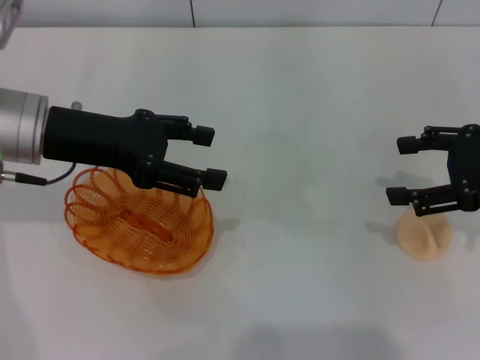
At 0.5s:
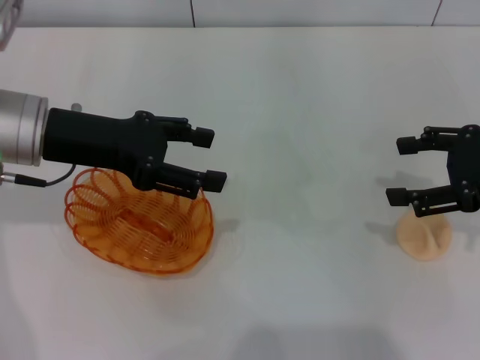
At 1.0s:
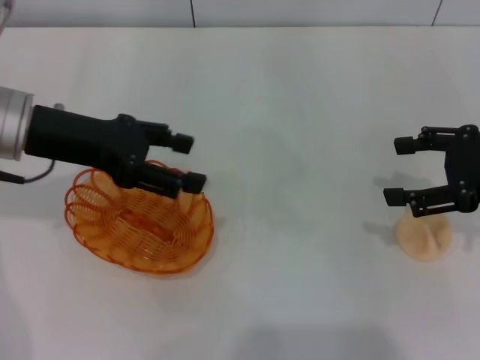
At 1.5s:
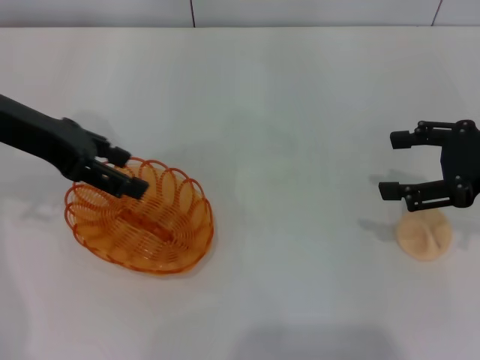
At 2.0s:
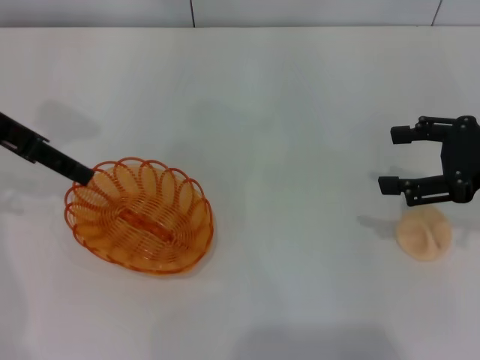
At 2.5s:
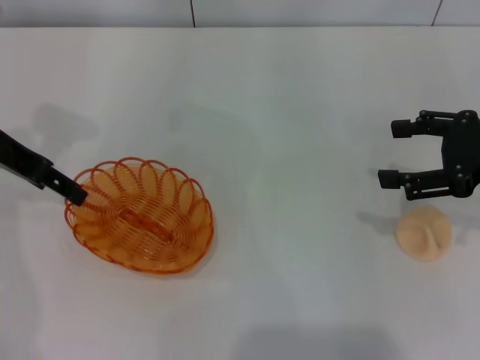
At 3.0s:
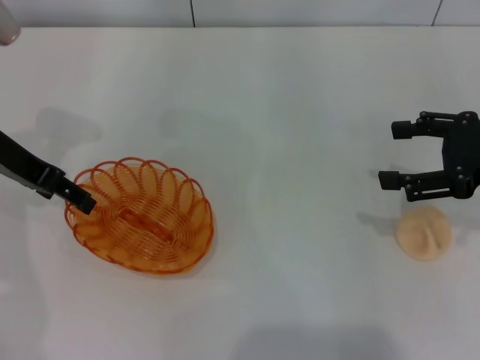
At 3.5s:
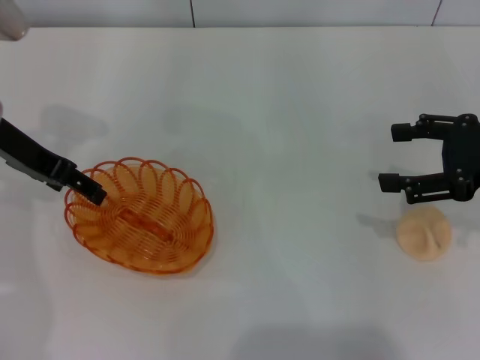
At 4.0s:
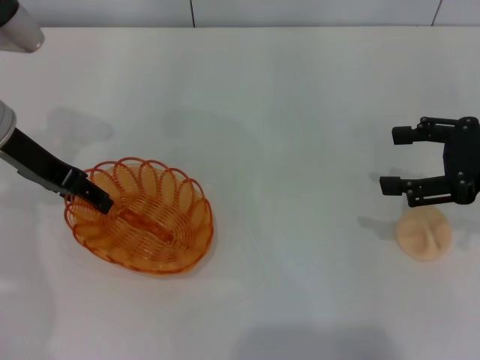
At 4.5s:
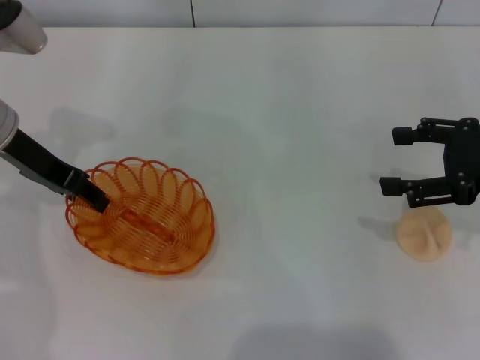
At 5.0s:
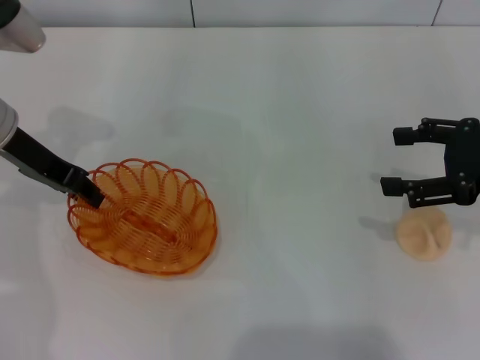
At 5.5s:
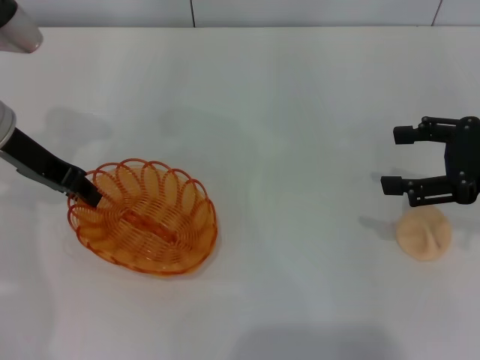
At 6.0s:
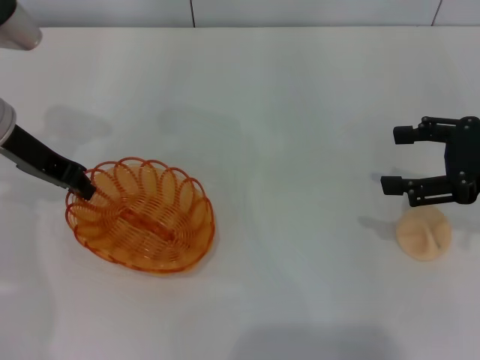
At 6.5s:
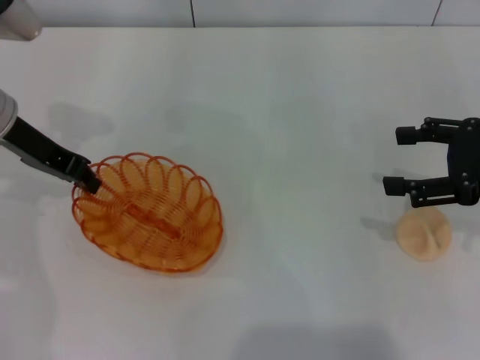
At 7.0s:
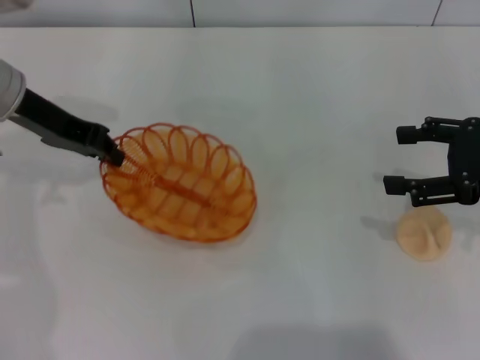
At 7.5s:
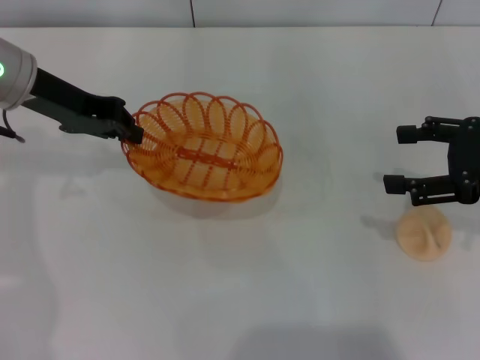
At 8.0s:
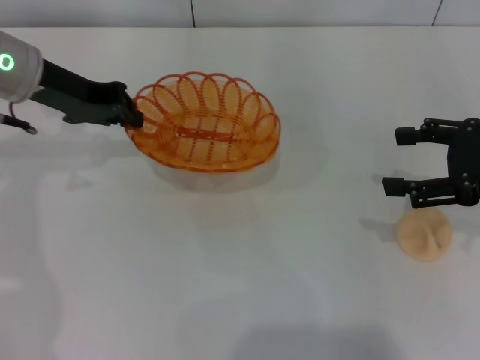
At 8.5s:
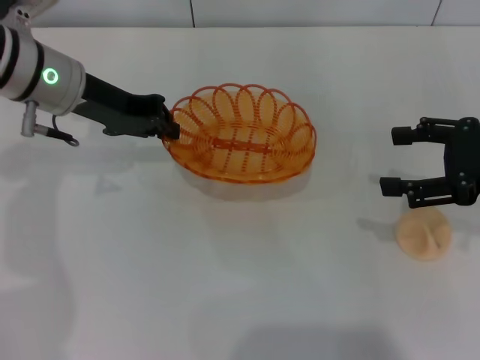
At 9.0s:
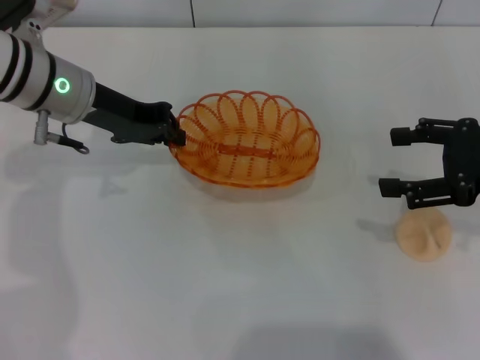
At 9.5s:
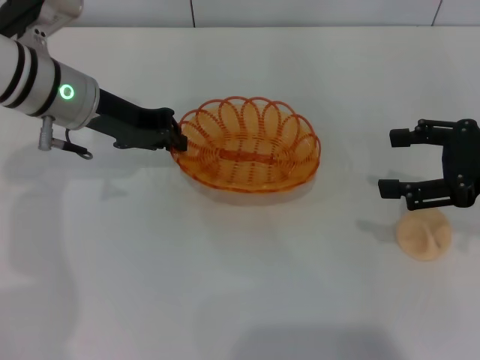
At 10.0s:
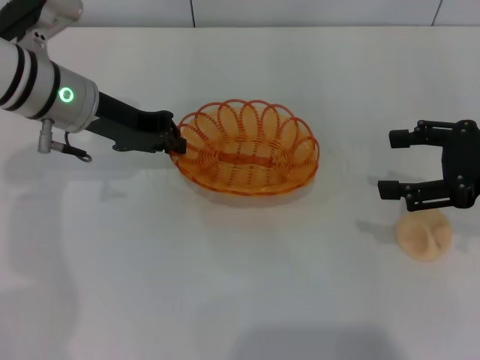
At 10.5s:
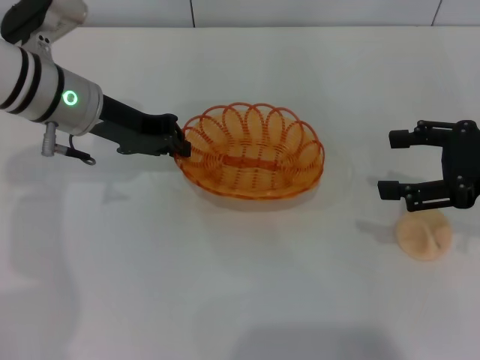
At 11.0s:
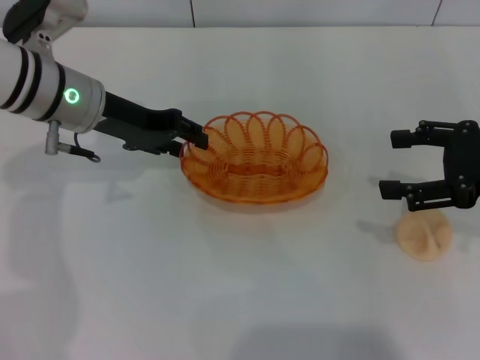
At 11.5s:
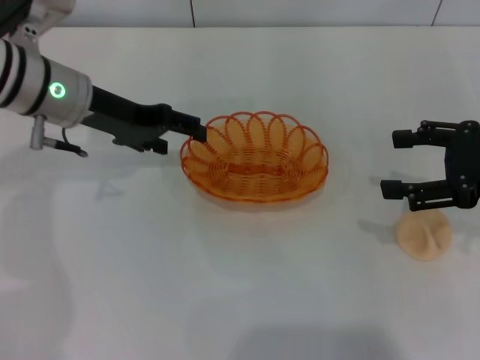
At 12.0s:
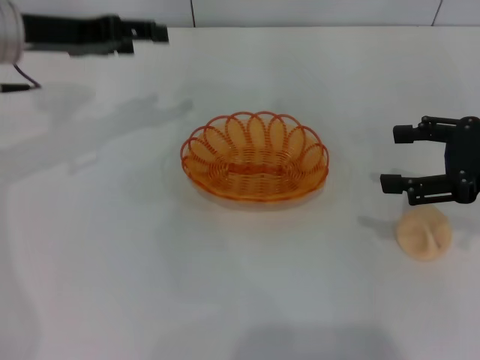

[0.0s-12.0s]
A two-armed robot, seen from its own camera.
Step, 0.0s to 7.0s: Pick up the basket with the left gripper.
Step, 7.5s to 11.5s: Place the basket in the center of view with the left gripper.
0.0s to 2.0s: The left gripper is displaced to the left and upward by some 10 cm.
2.0s to 4.0s: The left gripper shifts roughly 5 cm downward.
4.0s to 6.0s: The left gripper closes.
8.0s to 10.0s: The left gripper changes place by some 5 cm.
10.0s to 12.0s: The left gripper shifts approximately 5 cm to the left and upward, and opens up.

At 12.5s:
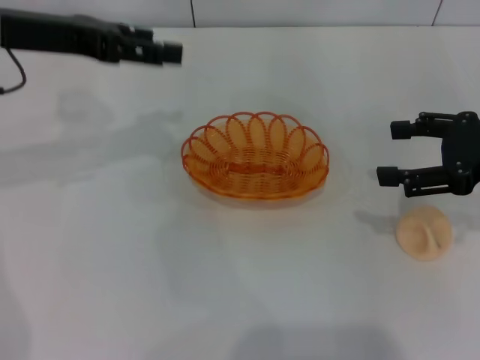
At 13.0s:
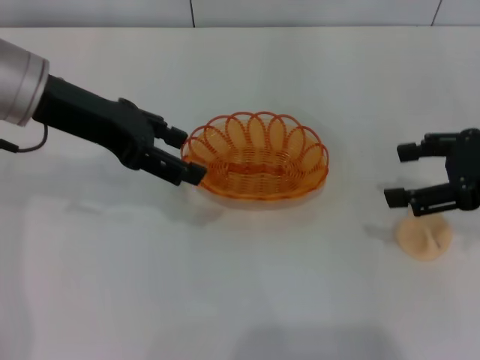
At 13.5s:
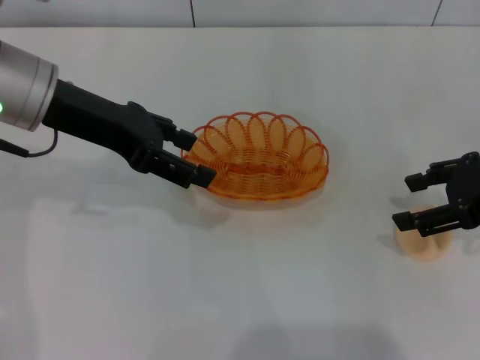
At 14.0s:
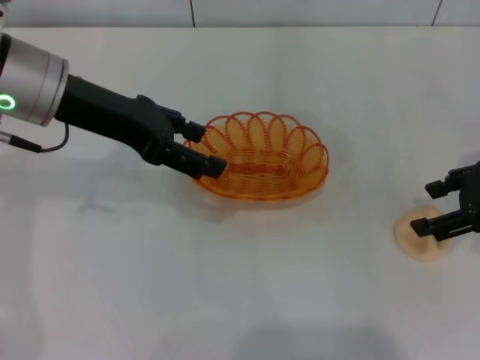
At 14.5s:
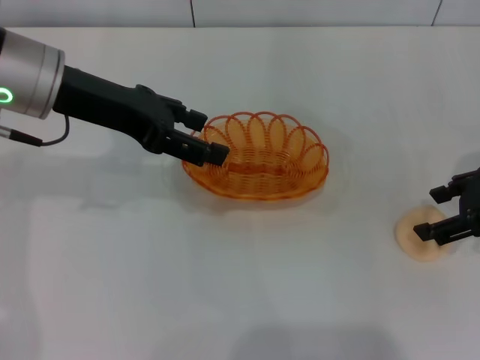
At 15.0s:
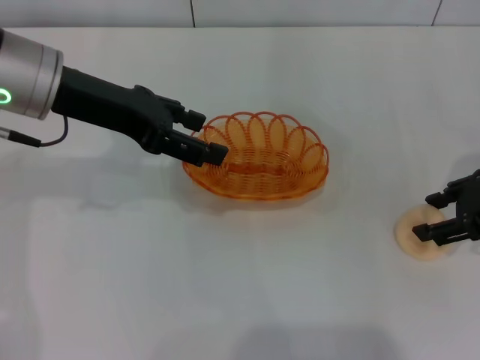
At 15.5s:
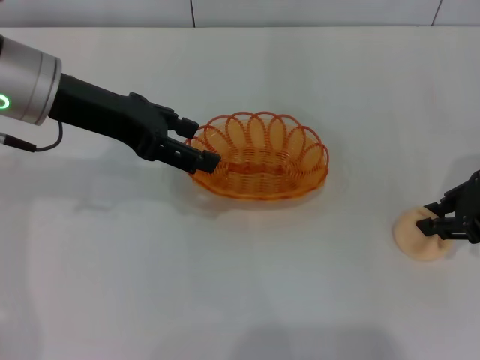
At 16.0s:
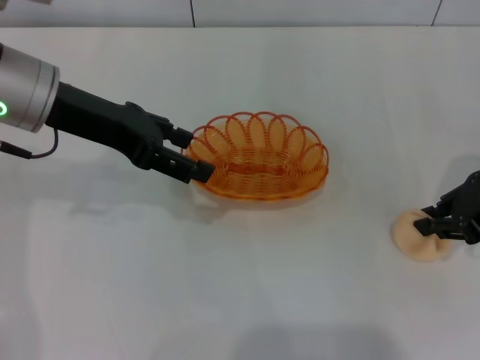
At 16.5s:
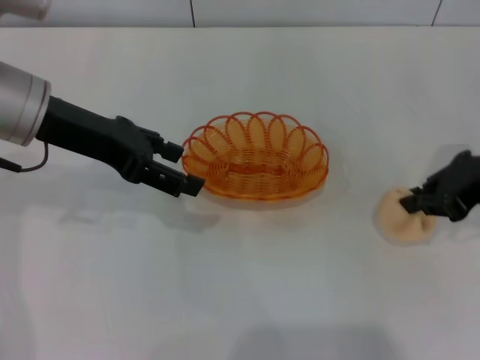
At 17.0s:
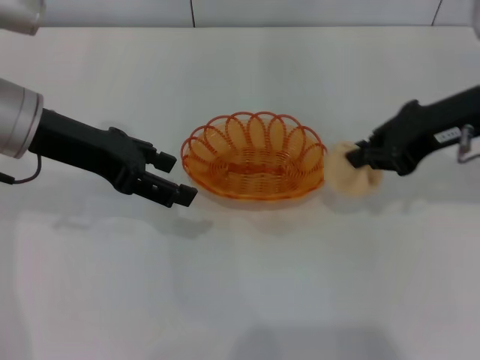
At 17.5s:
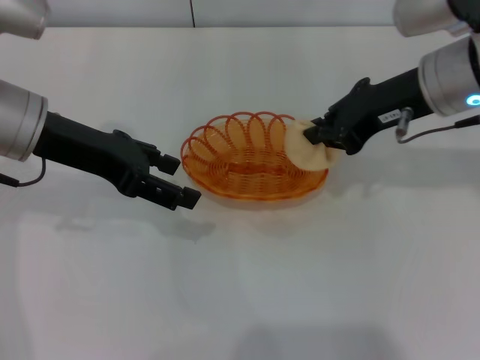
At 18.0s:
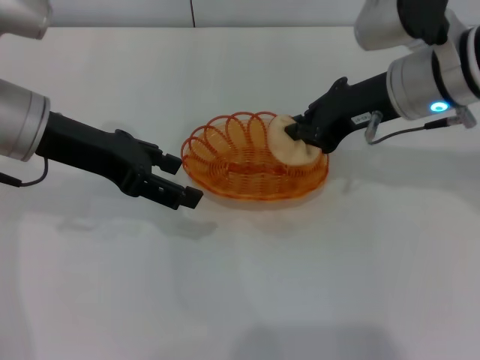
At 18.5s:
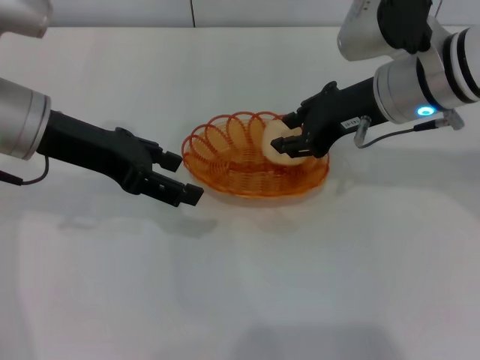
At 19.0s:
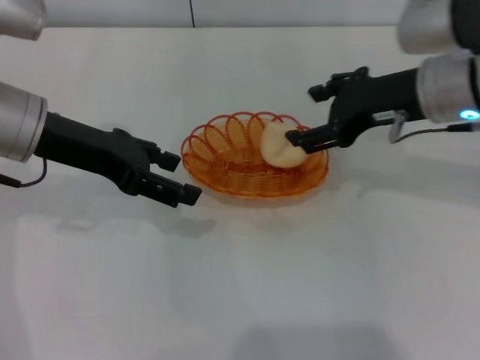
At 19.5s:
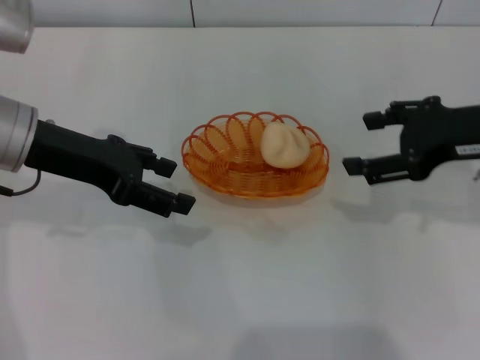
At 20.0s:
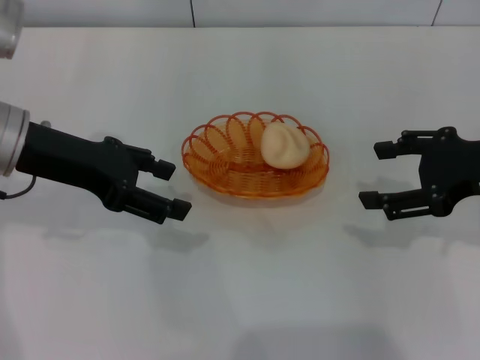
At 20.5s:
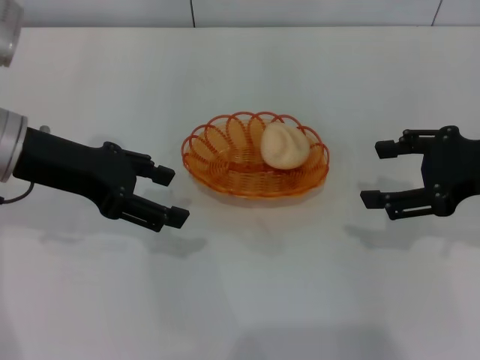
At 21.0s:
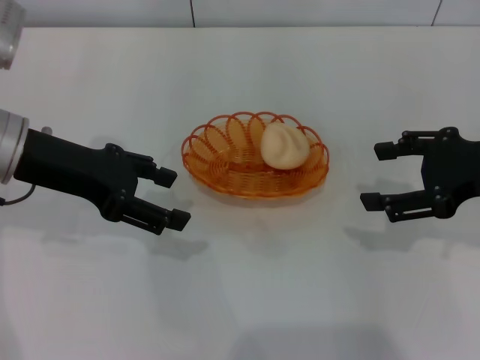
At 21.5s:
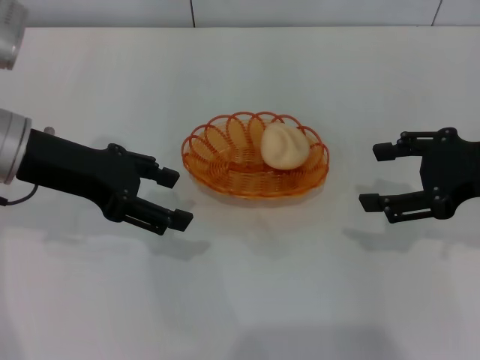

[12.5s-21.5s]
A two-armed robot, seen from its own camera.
Step, 12.5s to 16.5s: Pick up the egg yolk pastry with the right gripper.
Step, 17.0s to 19.0s: Place the egg yolk pastry into the basket with the right gripper.
12.5s to 14.5s: The left gripper moves approximately 5 cm.
14.5s to 17.0s: The right gripper heads to the left and upward, covering about 10 cm, and closes.
17.0s to 19.5s: The right gripper moves about 10 cm to the left and comes back, and opens its fingers.
19.5s to 21.5s: The grippers stay close to where they were, moving slightly.

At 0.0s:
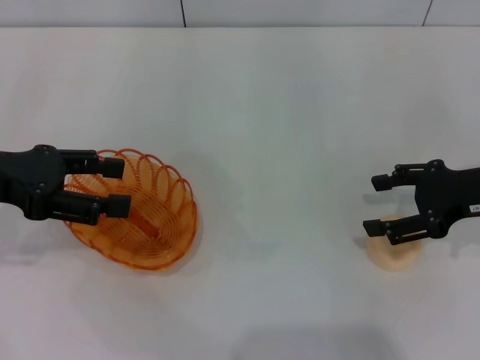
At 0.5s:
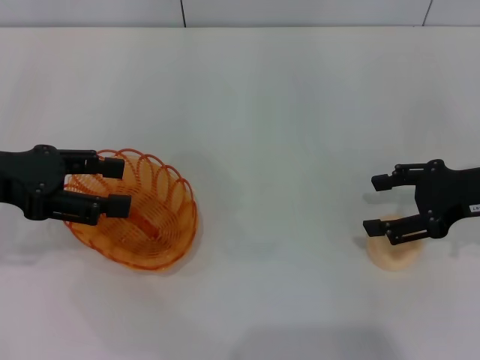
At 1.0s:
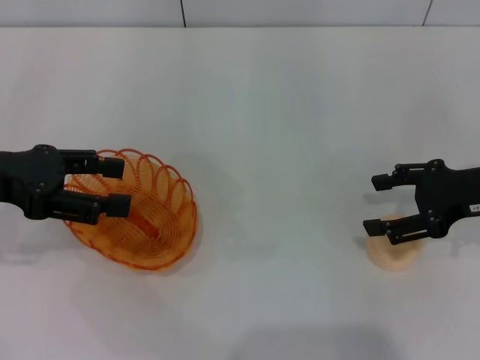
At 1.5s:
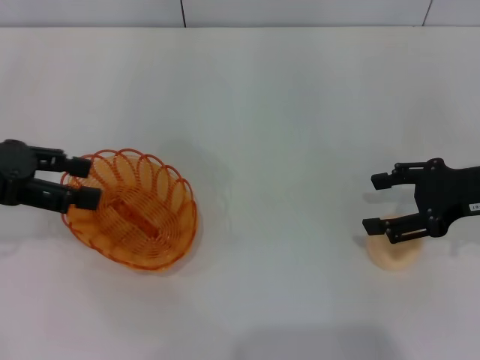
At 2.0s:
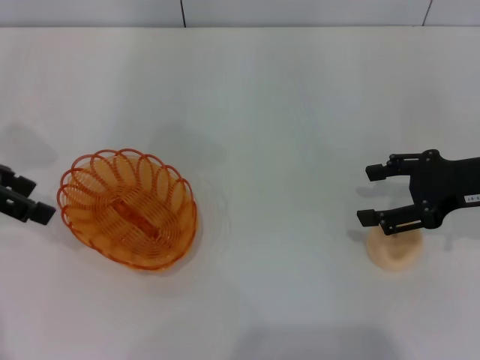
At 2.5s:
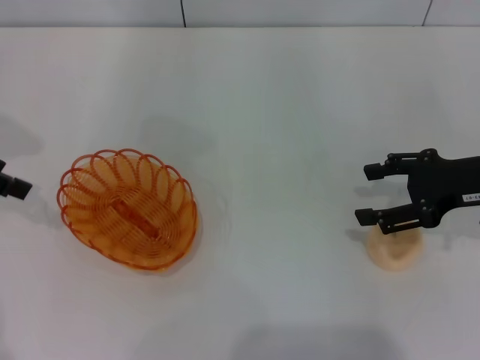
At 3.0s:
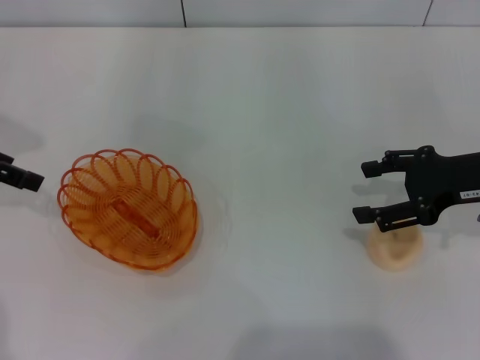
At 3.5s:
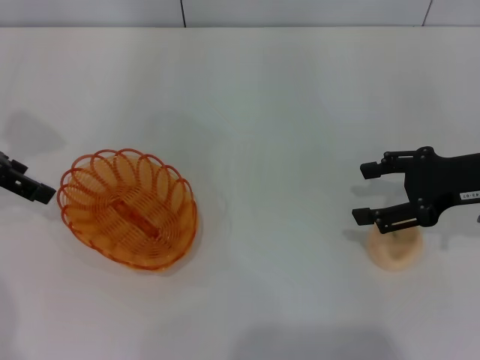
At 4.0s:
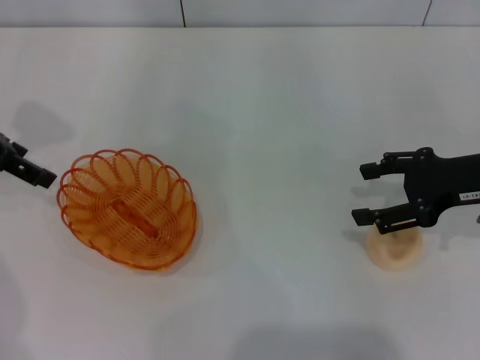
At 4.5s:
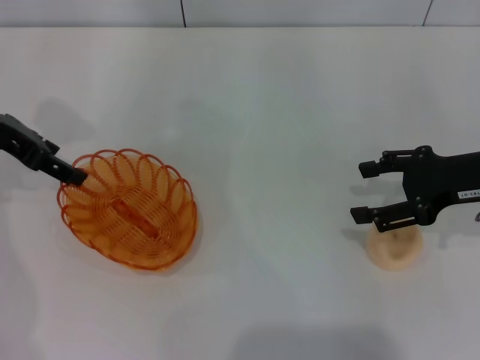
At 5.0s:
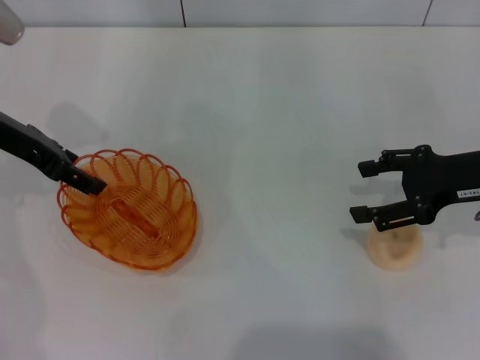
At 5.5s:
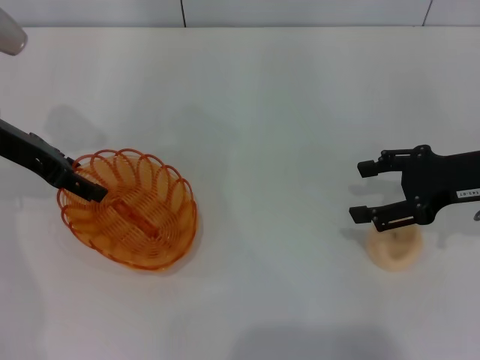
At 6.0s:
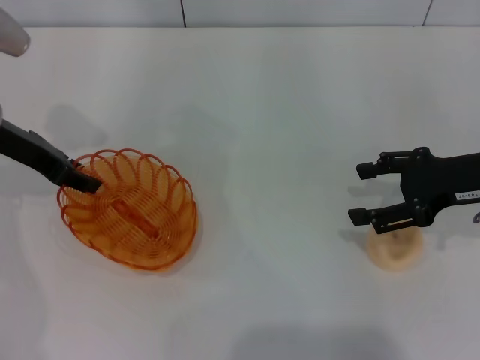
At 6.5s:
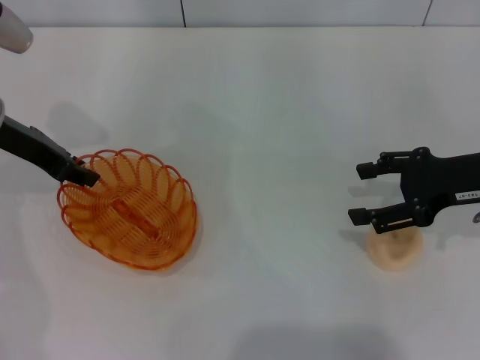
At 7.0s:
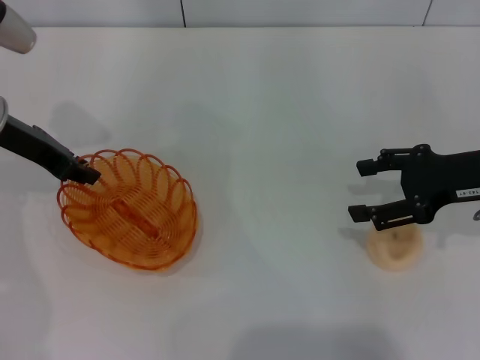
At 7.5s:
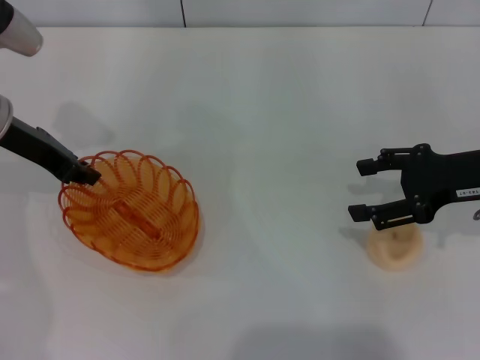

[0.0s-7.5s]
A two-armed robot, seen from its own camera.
0.0s to 2.0s: The left gripper ends up some 5 cm from where it was.
2.0s to 4.0s: There are only small adjustments of the grippers.
4.0s to 5.5s: The left gripper moves some 5 cm.
5.5s to 7.5s: The left gripper closes.
